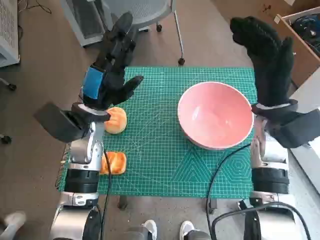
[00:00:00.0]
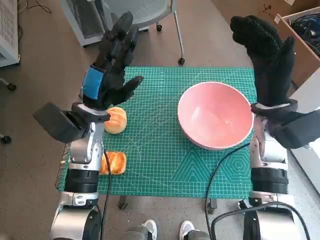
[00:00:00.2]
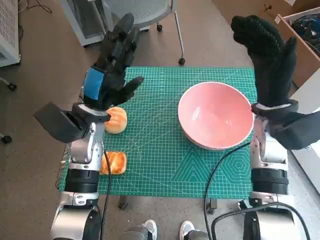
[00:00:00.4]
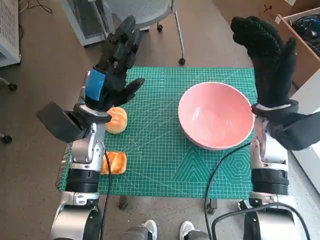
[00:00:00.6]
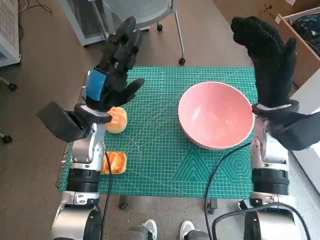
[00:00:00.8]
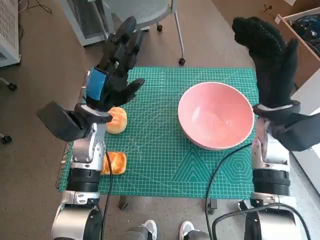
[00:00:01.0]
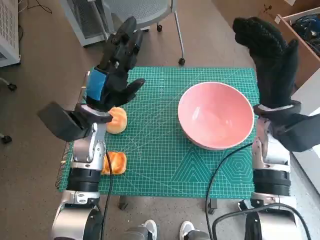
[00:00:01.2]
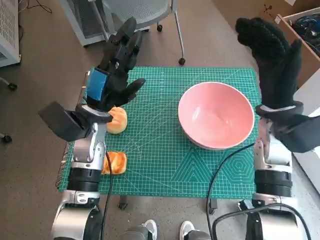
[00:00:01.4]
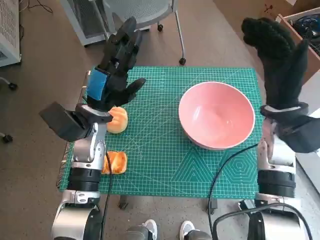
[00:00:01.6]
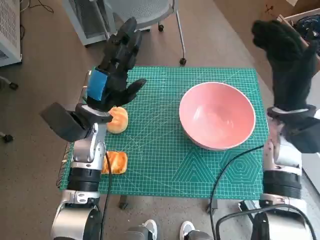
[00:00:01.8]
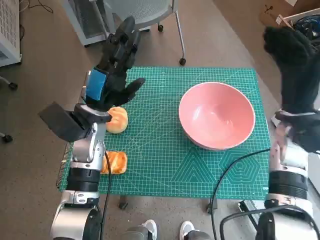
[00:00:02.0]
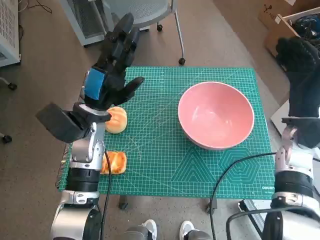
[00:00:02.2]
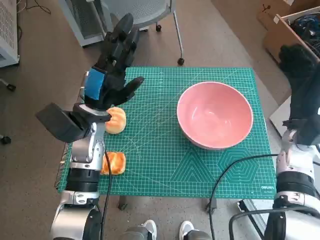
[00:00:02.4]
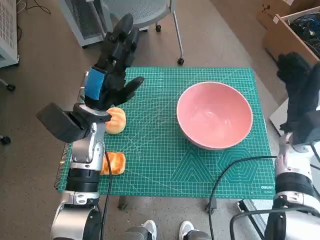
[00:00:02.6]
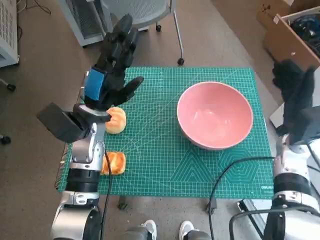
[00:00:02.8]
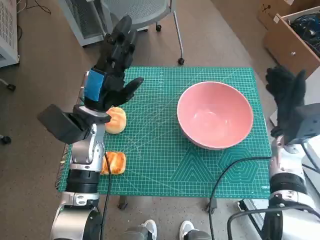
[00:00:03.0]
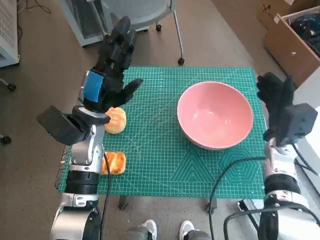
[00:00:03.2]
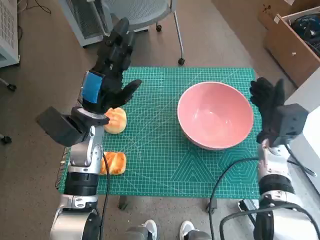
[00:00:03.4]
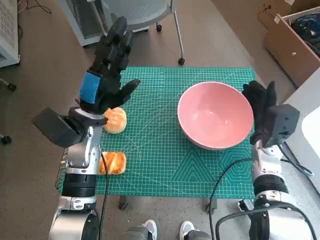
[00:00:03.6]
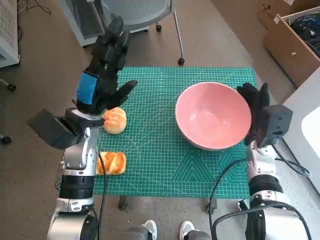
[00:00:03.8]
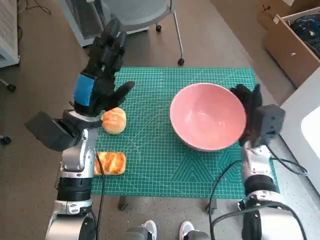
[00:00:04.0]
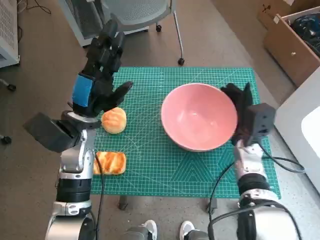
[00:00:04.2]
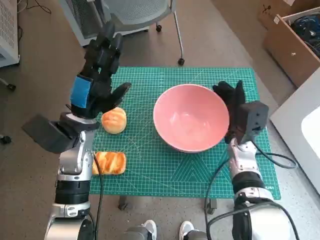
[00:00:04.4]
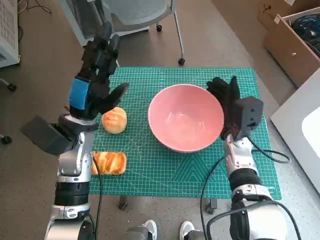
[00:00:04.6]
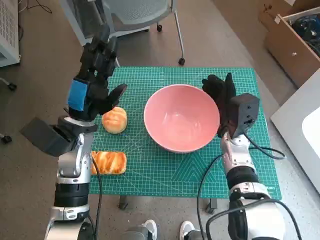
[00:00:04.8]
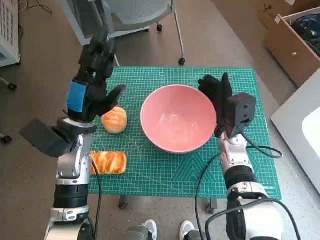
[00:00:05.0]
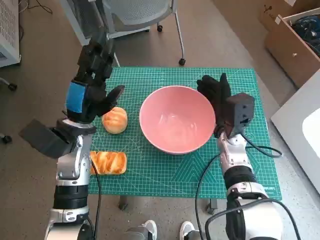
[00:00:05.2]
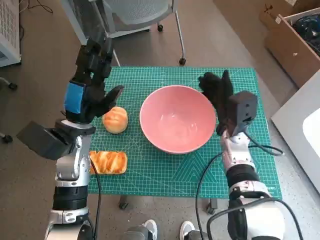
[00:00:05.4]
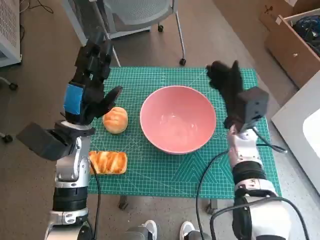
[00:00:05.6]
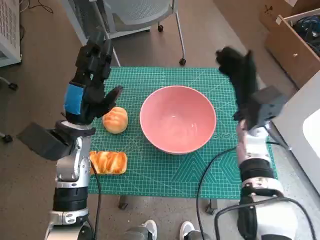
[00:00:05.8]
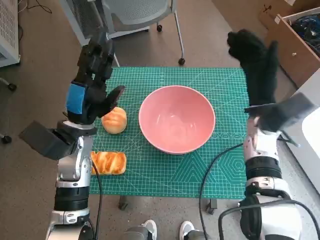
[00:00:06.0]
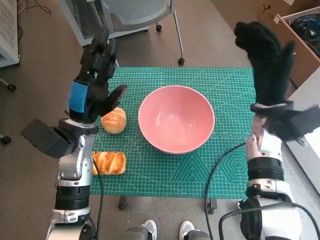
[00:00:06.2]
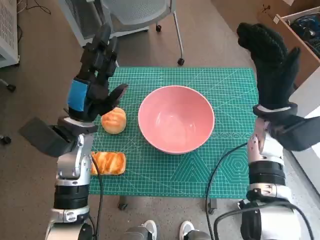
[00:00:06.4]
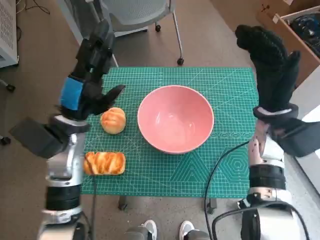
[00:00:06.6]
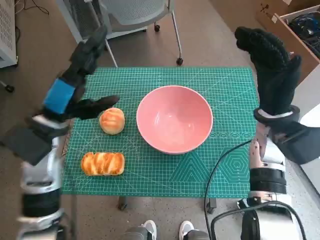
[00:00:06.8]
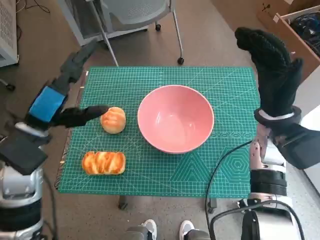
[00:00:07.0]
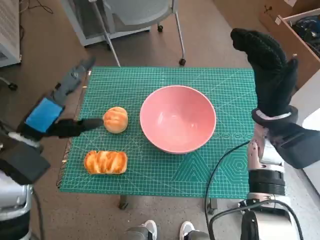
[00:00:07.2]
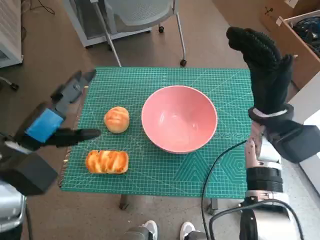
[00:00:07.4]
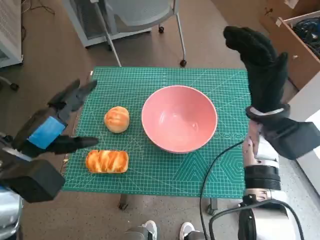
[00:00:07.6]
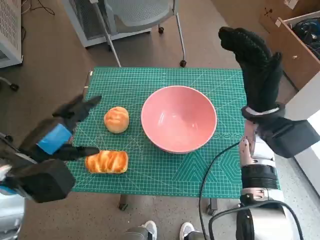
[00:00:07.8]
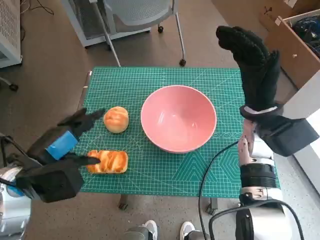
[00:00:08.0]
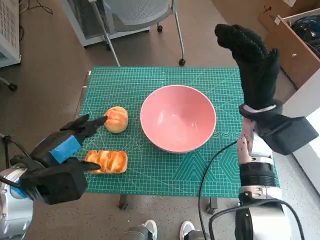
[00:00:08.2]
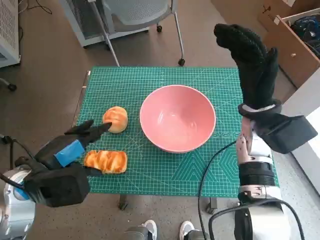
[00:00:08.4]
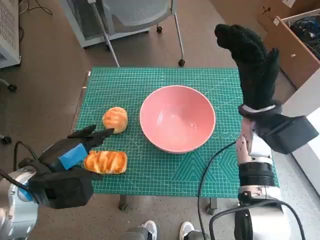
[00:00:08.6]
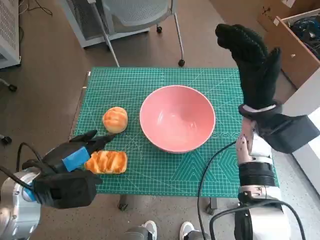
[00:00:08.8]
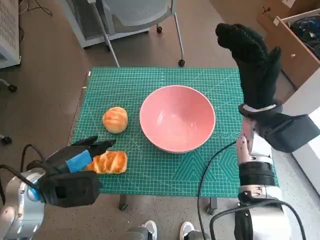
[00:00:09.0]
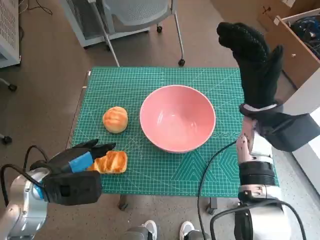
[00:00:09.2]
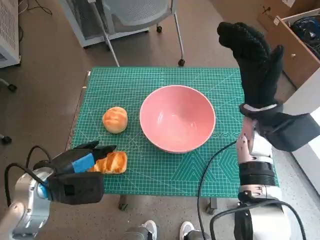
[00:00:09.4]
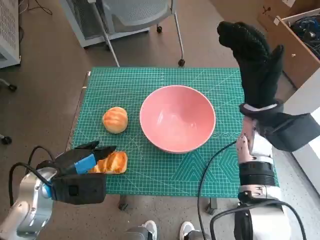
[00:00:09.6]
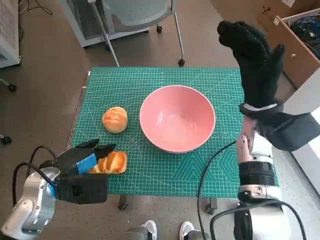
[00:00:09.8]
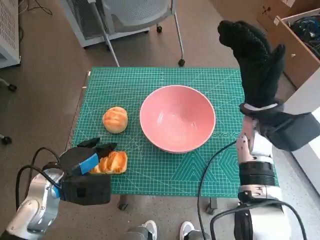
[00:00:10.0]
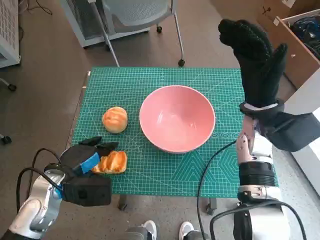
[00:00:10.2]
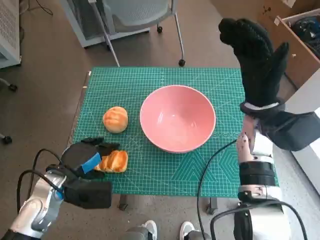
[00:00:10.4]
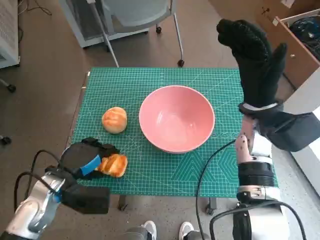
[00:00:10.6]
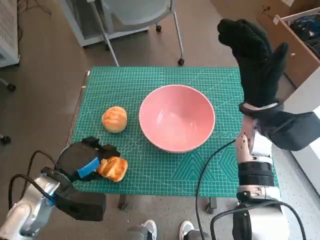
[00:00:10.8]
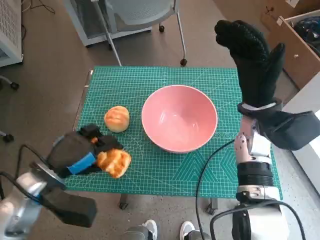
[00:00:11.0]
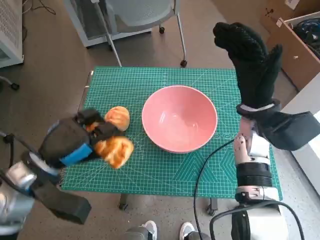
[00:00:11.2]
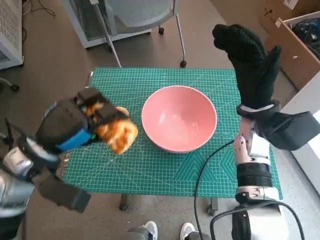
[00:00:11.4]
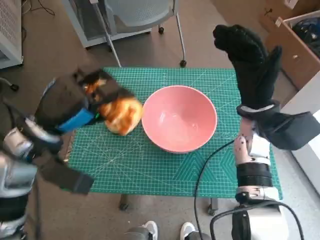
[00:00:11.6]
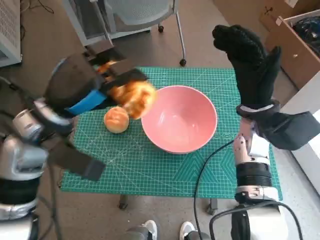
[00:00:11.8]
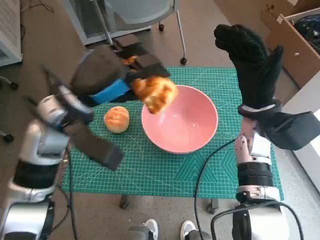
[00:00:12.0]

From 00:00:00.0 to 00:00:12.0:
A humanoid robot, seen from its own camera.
Step, from 00:00:00.0 to 00:00:05.4: Move the pink bowl to the center of table with right hand.
Step, from 00:00:05.6 to 00:00:10.4: Grasp the long bread with left hand.
From 00:00:01.6 to 00:00:03.0: The right hand is displaced downward and to the right by about 10 cm.
From 00:00:03.0 to 00:00:04.4: The right hand shifts approximately 10 cm to the left.
From 00:00:04.4 to 00:00:06.0: The right hand is displaced upward by about 10 cm.
From 00:00:06.0 to 00:00:07.6: The left hand is displaced backward and to the left by approximately 10 cm.
From 00:00:09.0 to 00:00:10.4: The left hand travels downward by approximately 5 cm.
From 00:00:10.4 to 00:00:12.0: The left hand travels upward and forward by roughly 15 cm.

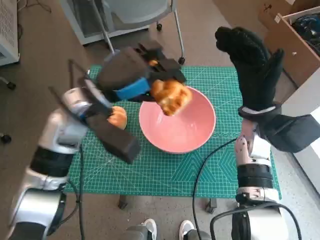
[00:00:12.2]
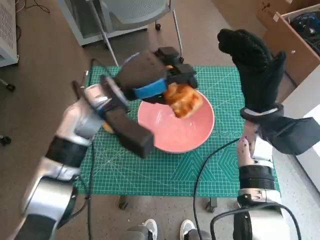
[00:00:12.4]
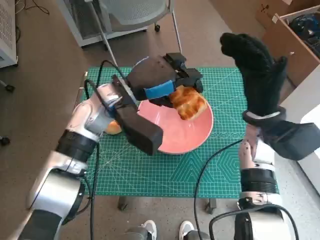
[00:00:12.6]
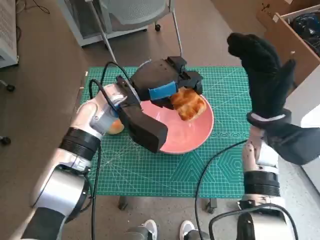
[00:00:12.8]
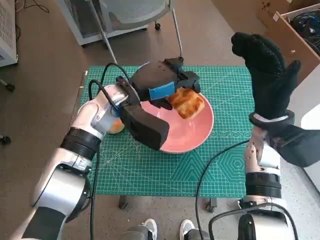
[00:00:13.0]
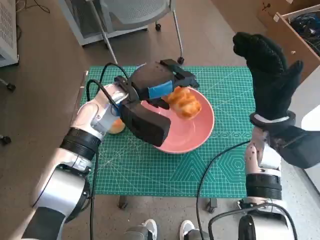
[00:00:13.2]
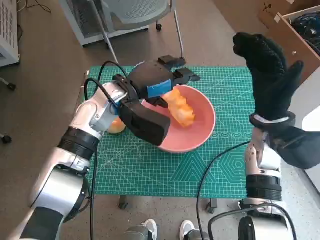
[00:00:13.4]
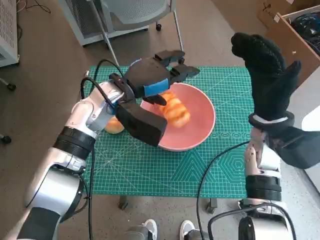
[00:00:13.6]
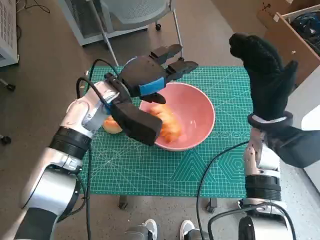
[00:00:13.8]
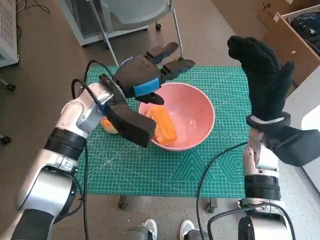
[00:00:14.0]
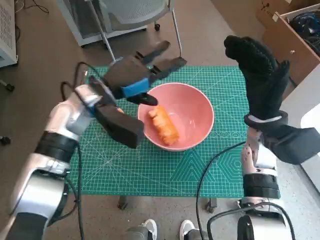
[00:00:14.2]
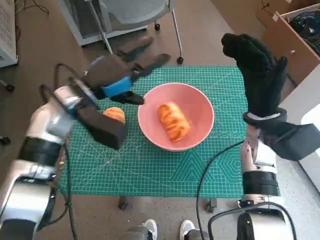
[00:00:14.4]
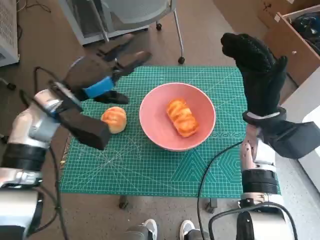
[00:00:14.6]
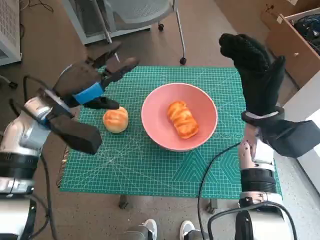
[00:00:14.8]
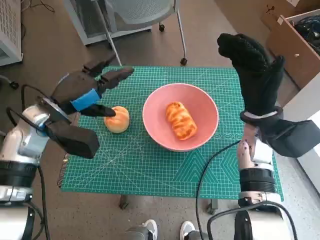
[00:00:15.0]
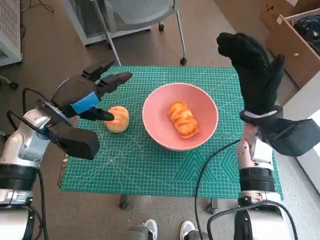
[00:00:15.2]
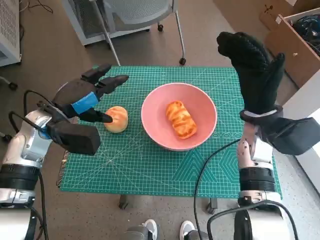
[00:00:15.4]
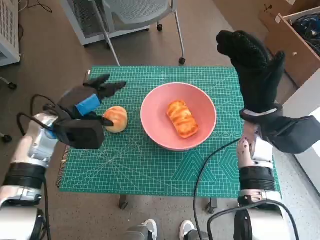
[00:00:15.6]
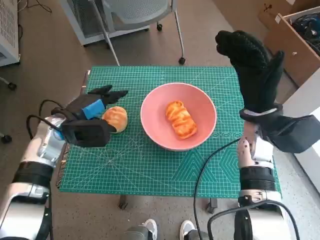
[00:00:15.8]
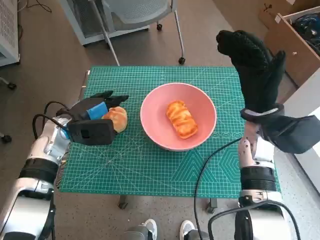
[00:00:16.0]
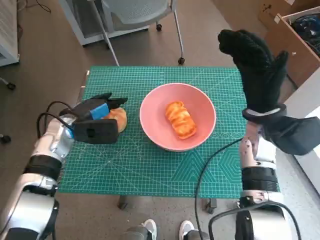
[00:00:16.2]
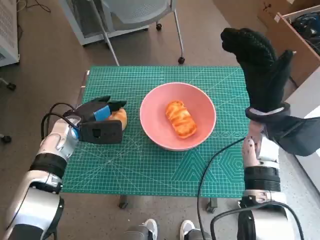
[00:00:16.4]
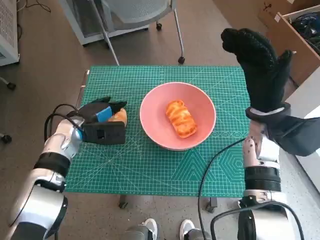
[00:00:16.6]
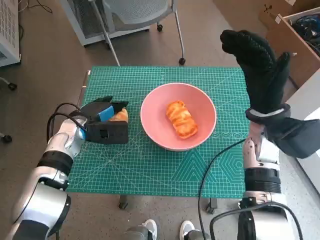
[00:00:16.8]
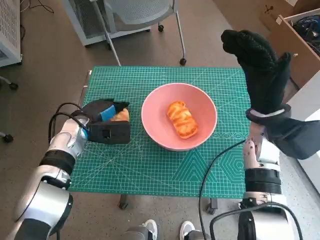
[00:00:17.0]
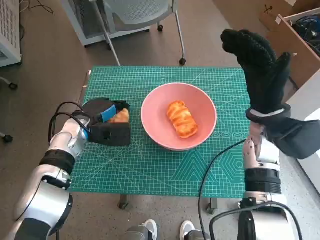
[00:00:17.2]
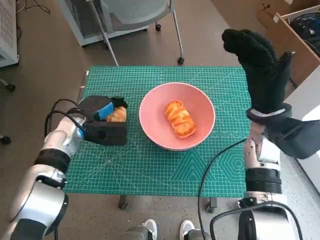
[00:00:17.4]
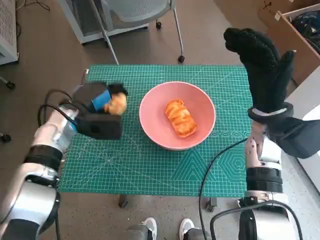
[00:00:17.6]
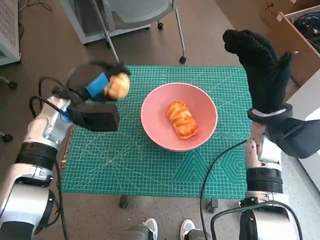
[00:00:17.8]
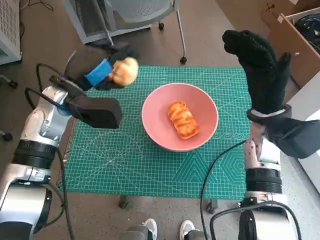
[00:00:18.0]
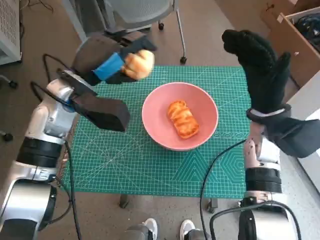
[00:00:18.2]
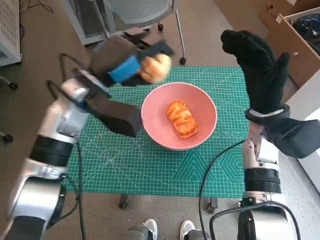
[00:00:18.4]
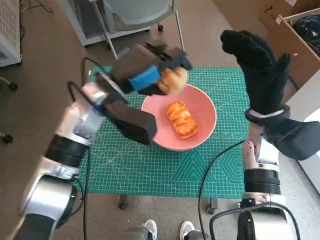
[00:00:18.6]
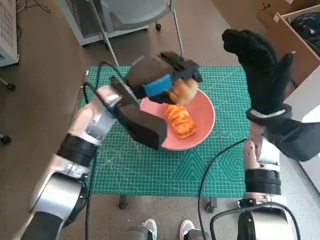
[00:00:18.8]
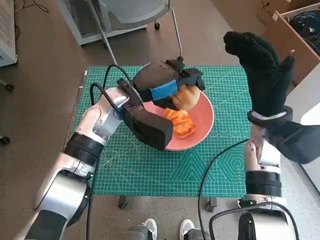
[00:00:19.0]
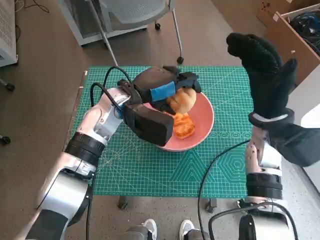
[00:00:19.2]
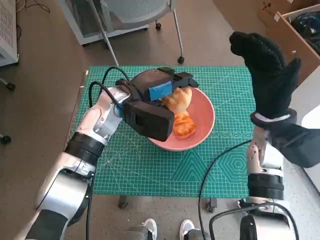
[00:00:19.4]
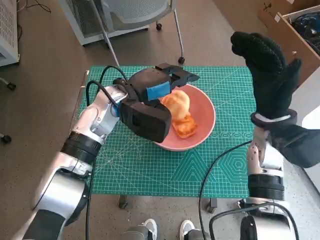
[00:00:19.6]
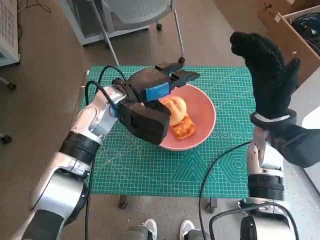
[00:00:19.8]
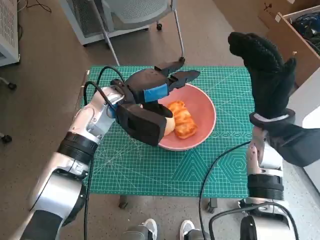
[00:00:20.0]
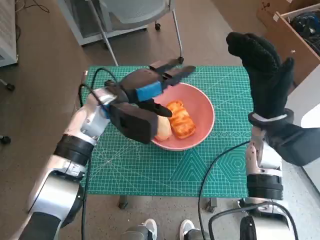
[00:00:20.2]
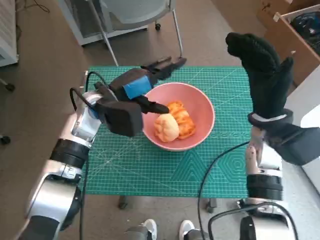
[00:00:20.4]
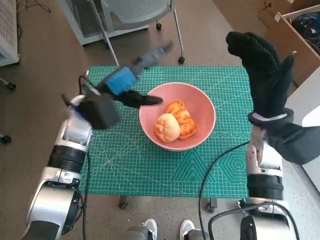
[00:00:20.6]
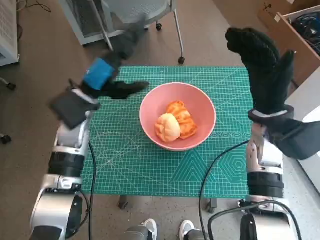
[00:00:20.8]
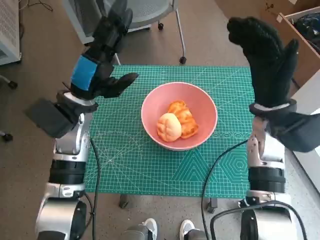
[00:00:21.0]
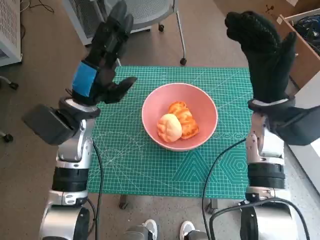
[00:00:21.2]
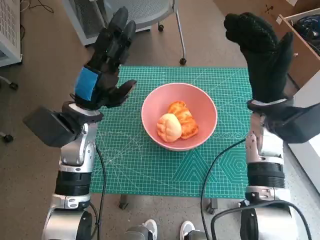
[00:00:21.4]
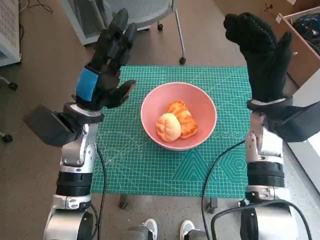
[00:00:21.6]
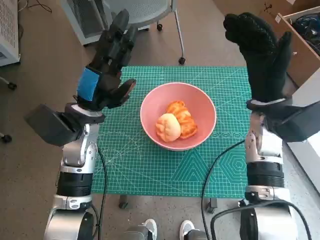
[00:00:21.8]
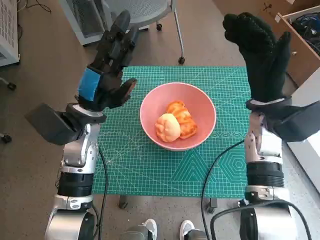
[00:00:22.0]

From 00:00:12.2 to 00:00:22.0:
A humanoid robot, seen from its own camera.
Step, from 00:00:13.8 to 00:00:17.2: Grasp the round bread with left hand.
Step, from 00:00:17.4 to 00:00:20.0: Place the round bread in pink bowl with left hand.
From 00:00:12.2 to 00:00:13.6: The left hand shifts by about 5 cm.
From 00:00:13.6 to 00:00:15.0: The left hand goes approximately 15 cm to the left.
From 00:00:15.0 to 00:00:16.4: The left hand travels downward by some 10 cm.
From 00:00:16.4 to 00:00:17.8: The left hand goes about 5 cm upward.
From 00:00:17.8 to 00:00:19.2: The left hand travels to the right by some 10 cm.
From 00:00:19.2 to 00:00:20.6: The left hand is displaced to the left by some 5 cm.
